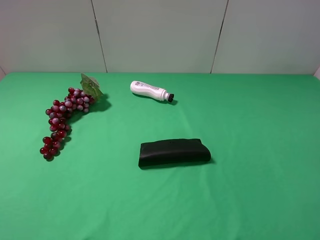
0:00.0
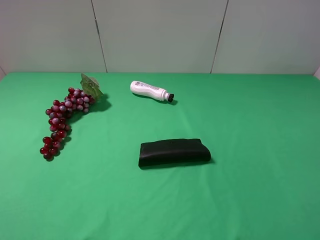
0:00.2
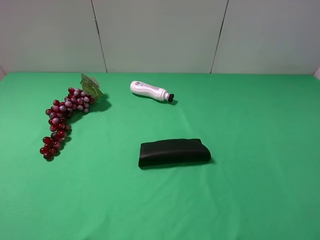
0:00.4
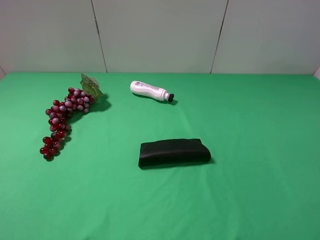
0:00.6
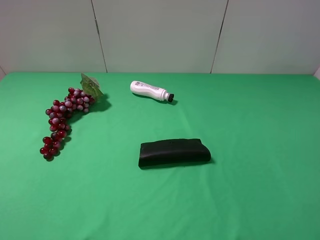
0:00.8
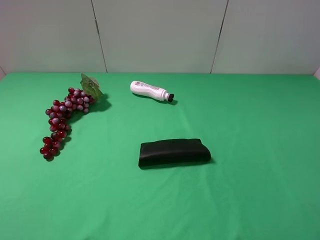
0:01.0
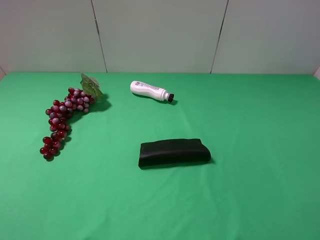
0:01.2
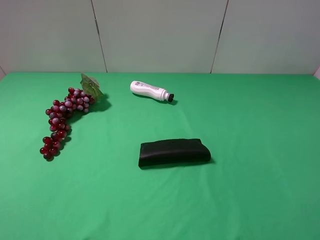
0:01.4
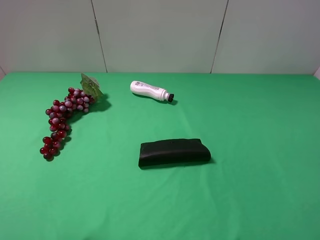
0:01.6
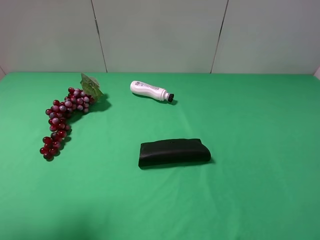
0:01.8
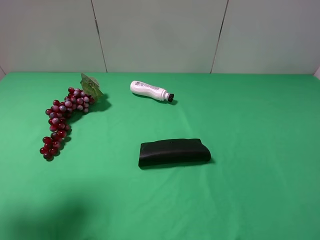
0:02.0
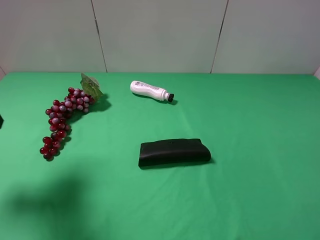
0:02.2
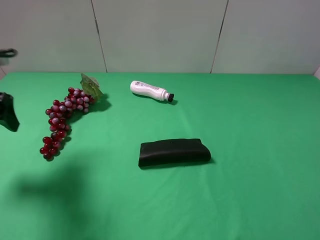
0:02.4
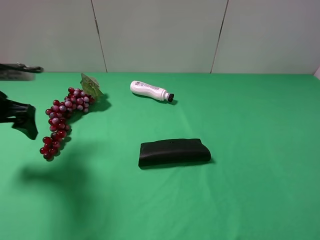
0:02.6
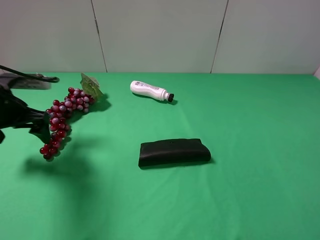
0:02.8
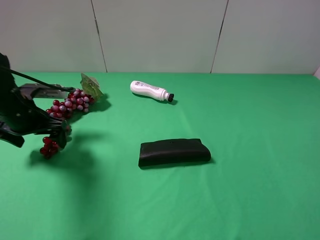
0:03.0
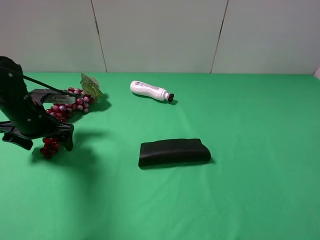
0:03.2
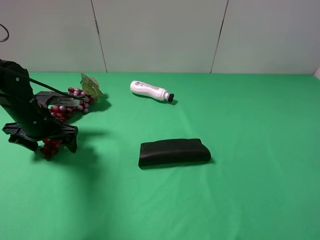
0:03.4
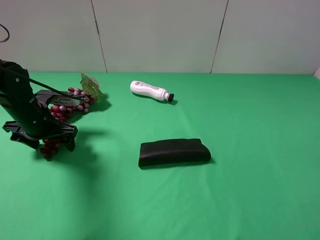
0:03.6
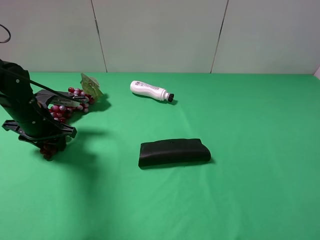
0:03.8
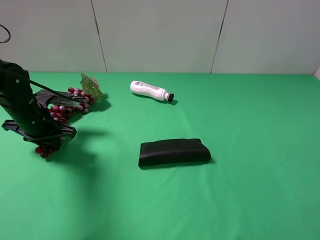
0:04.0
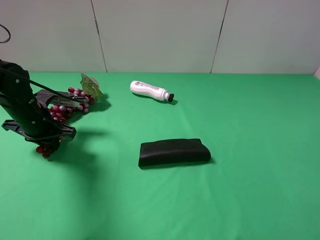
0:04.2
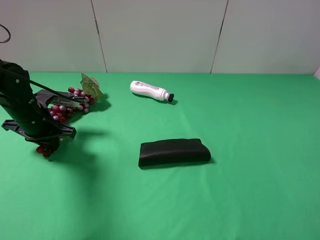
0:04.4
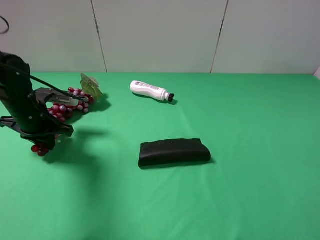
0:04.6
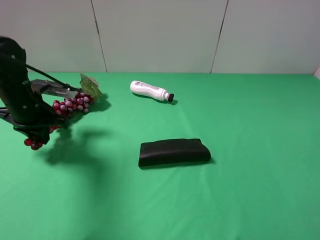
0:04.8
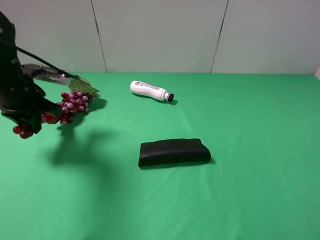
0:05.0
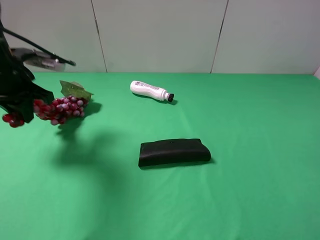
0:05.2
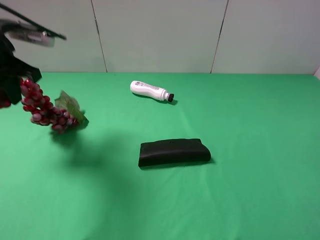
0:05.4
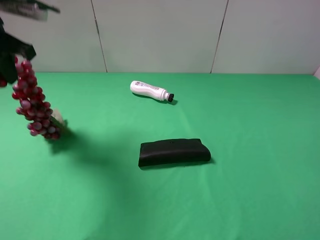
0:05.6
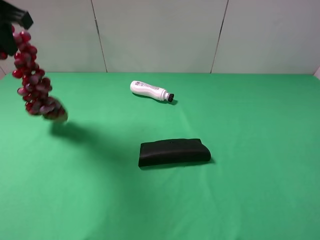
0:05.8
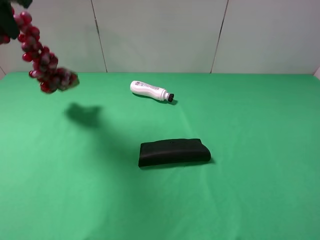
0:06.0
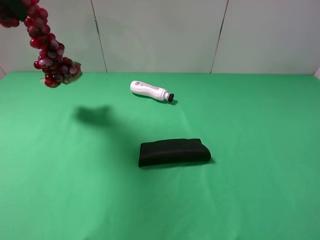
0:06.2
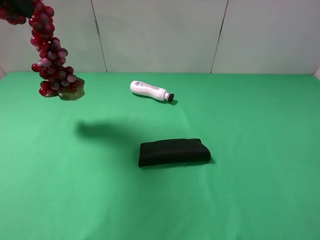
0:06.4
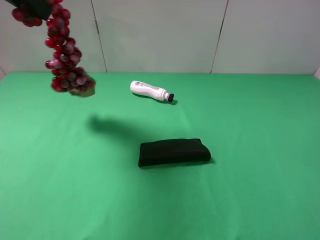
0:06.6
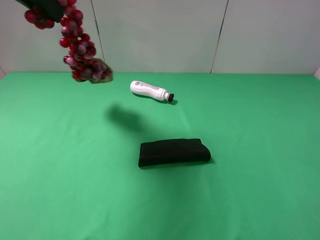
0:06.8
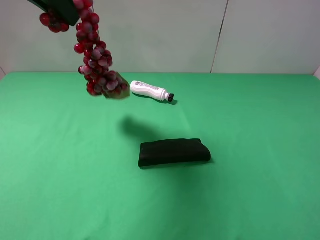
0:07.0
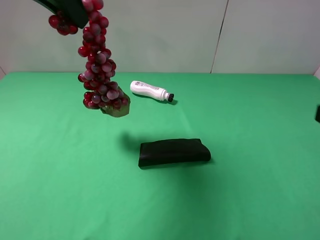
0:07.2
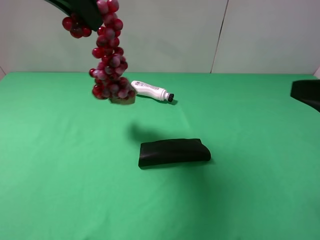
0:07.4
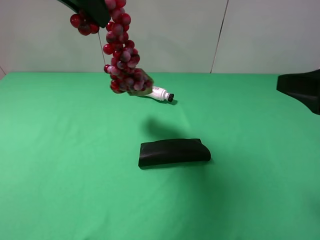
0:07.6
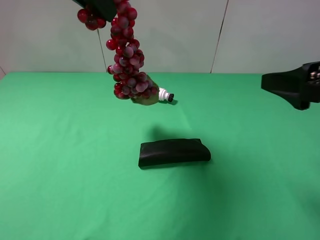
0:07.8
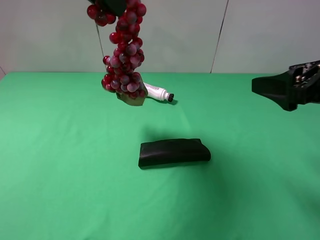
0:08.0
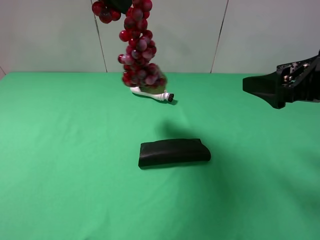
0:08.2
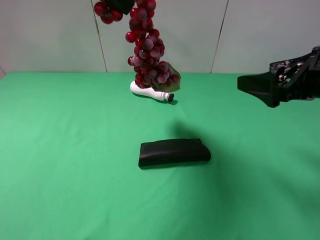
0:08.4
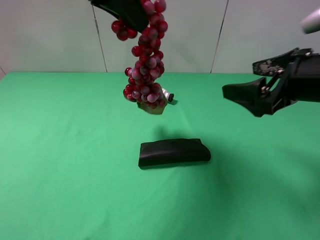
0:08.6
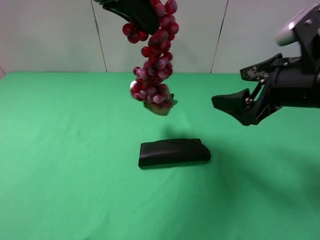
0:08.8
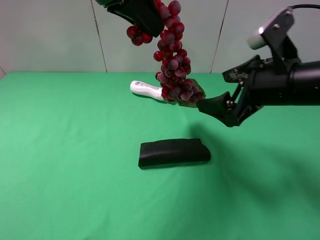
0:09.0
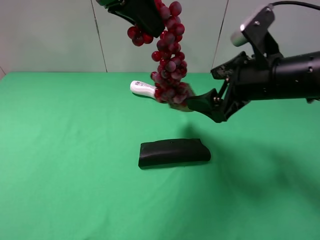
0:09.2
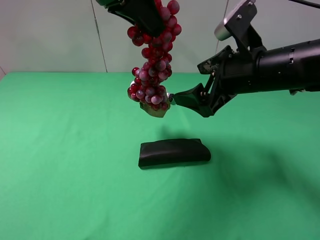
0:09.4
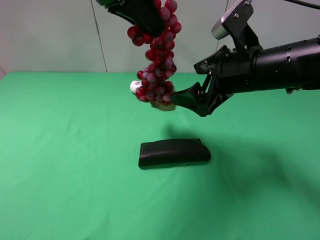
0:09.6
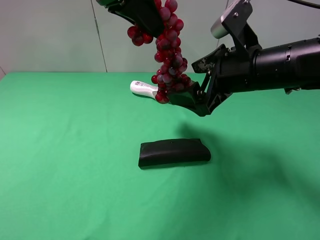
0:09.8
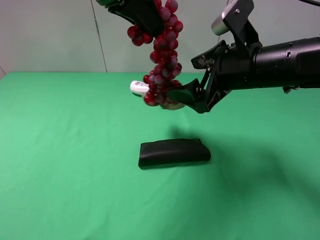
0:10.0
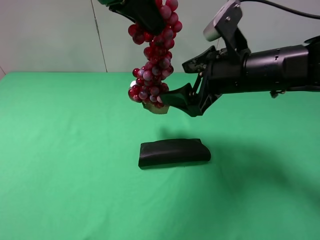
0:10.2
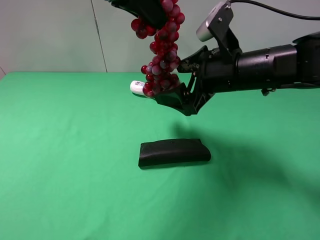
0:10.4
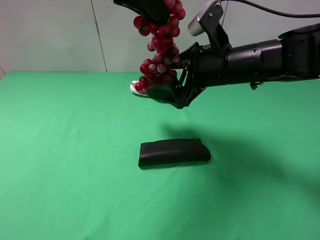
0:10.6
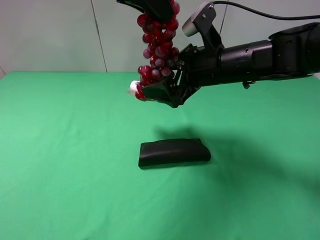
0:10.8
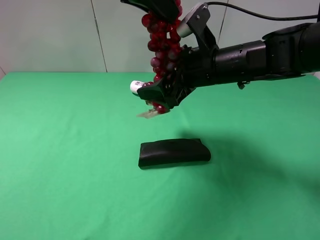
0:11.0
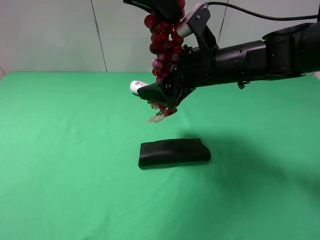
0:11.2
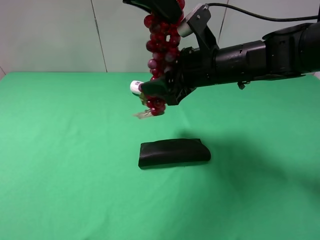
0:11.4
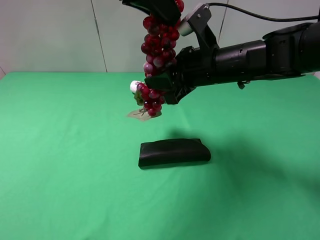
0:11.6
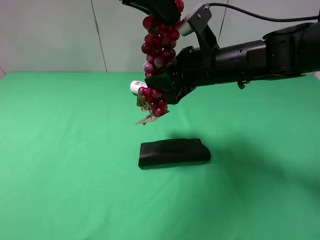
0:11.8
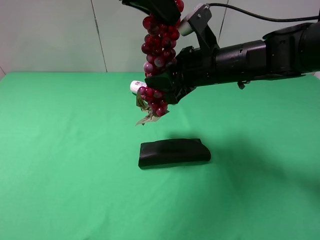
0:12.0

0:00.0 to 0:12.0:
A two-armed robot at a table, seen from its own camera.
Task of the whole recording: use the left gripper to pick up the item and transfer it from the left gripper to the right gripper.
Step, 0:00.0 to 0:04.4: Use the left gripper to grab the grape on the left side of the table.
0:01.6 to 0:03.0: The left gripper goes some 30 cm forward and downward.
0:03.0 to 0:04.4: The left gripper closes its fingers.
0:04.4 to 0:06.0: The left gripper travels upward by roughly 25 cm.
0:06.0 to 0:07.6: The right gripper heads forward, covering roughly 15 cm. The left gripper goes about 15 cm to the right.
0:07.6 to 0:09.0: The left gripper ends up roughly 5 cm from where it was, while the right gripper heads forward, to the left and downward, covering roughly 15 cm.
0:09.0 to 0:10.4: The right gripper travels to the left by some 5 cm.
0:10.4 to 0:12.0: The right gripper closes up.

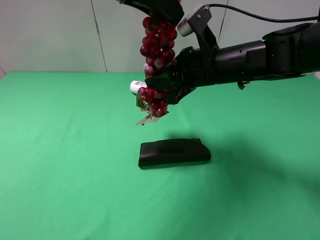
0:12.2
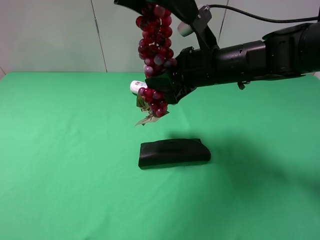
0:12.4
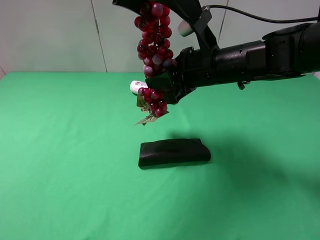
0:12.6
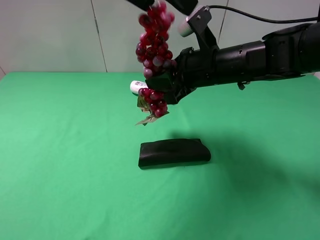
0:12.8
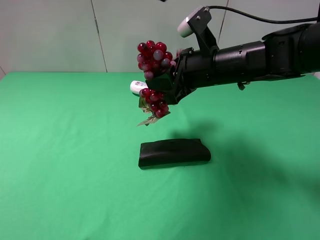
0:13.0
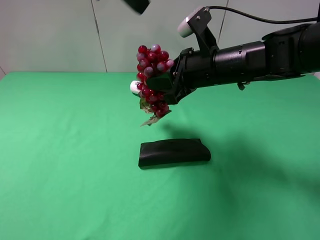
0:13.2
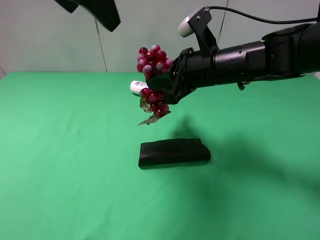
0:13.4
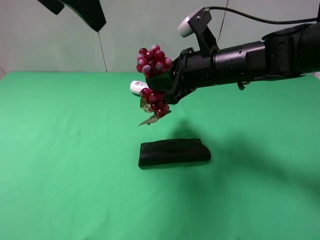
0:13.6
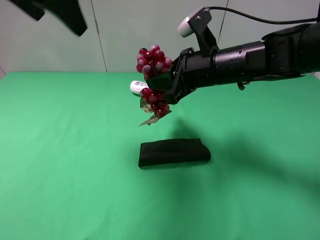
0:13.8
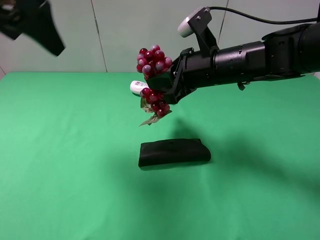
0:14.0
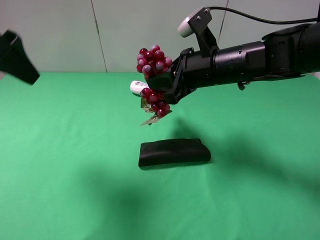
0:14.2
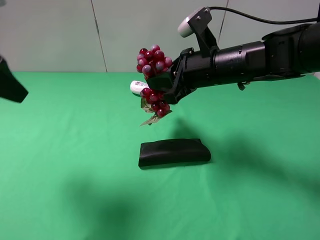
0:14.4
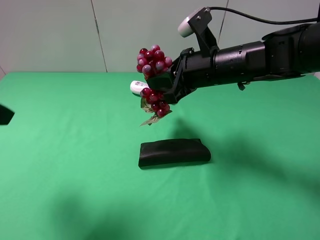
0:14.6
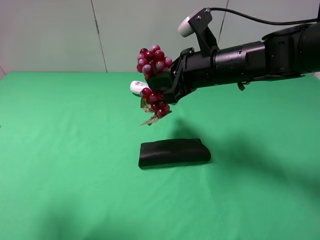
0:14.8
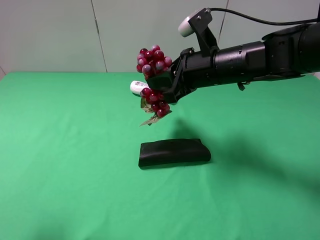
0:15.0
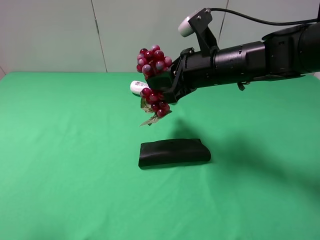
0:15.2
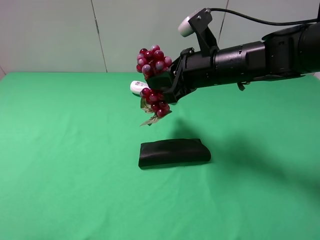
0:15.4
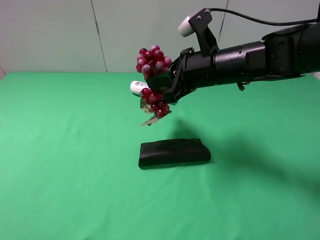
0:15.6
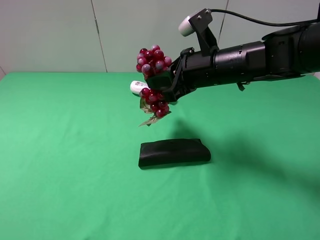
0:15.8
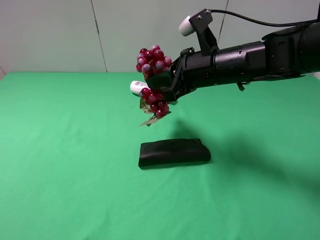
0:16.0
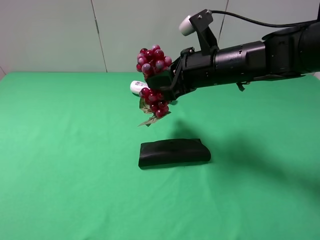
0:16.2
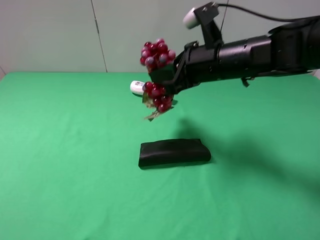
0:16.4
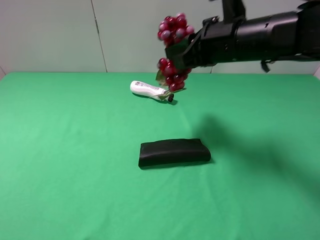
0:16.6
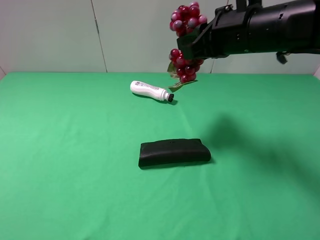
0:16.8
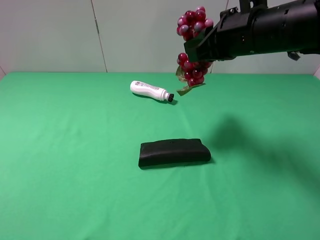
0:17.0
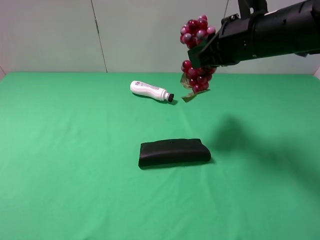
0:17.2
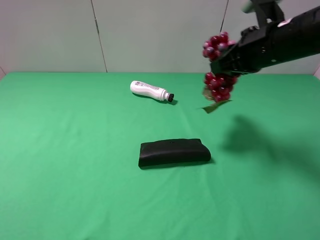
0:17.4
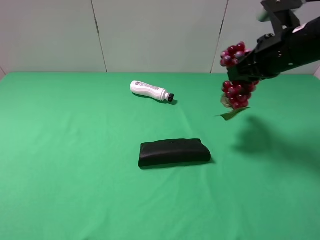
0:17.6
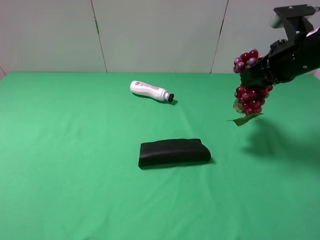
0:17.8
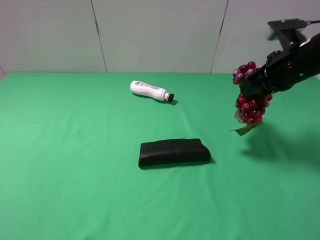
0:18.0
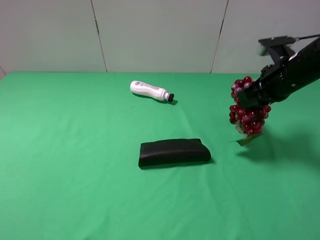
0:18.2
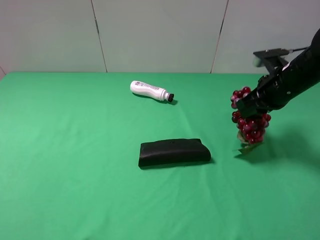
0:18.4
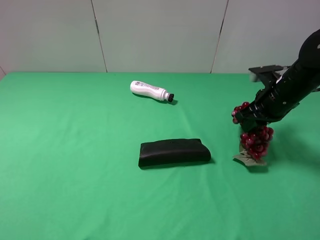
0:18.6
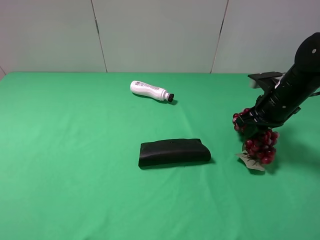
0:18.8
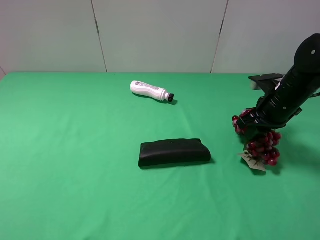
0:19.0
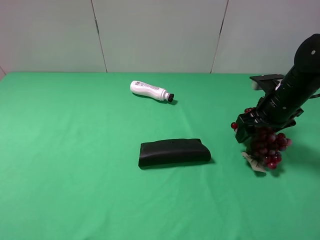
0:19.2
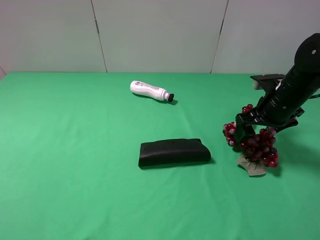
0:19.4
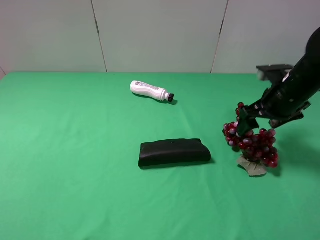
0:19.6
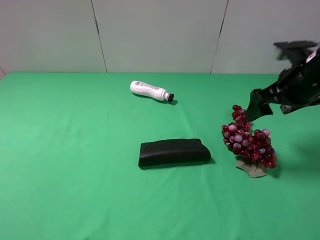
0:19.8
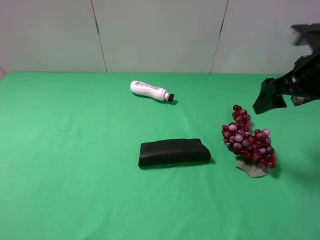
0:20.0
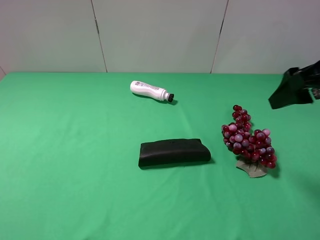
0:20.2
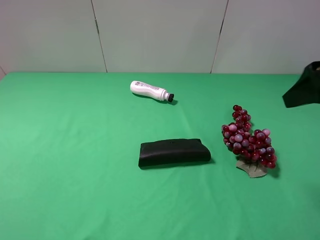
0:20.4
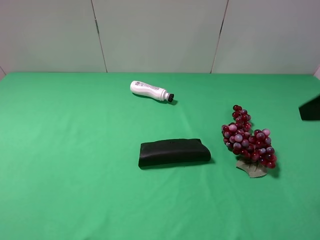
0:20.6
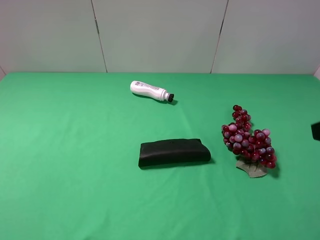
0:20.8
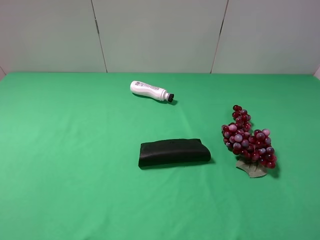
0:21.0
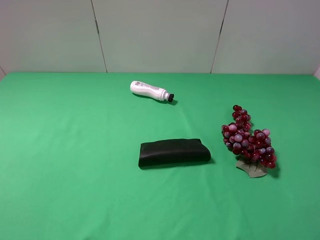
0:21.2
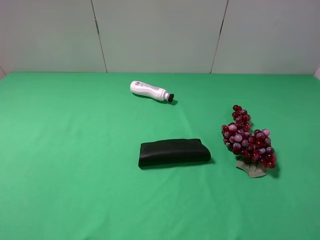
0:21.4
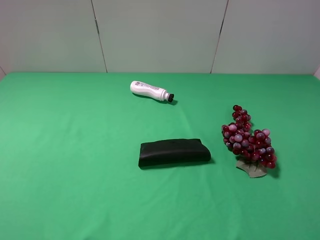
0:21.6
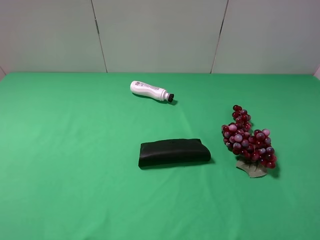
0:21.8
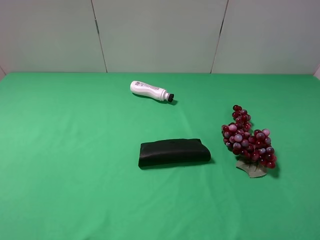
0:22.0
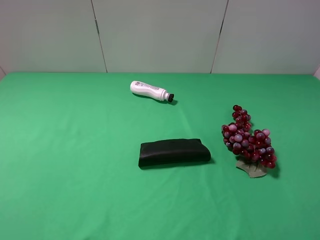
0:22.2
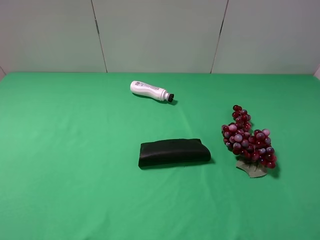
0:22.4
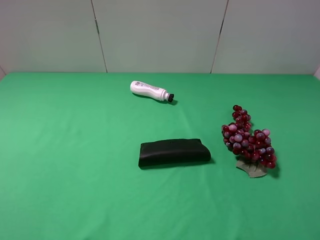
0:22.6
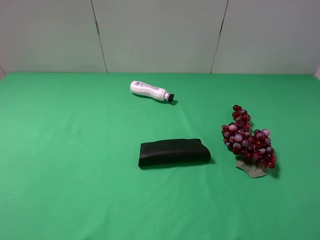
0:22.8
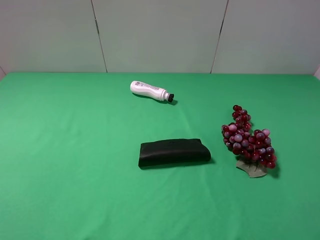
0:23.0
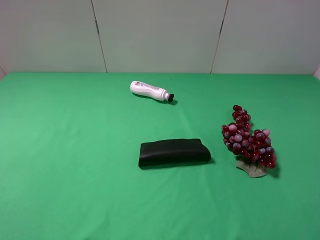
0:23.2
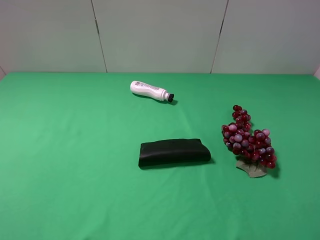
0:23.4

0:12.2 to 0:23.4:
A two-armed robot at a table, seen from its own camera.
Task of the whole recording: use the left gripper to pick up the item and transfer it from the left gripper to the right gripper.
Step, 0:13.2 to 0:19.6: The right gripper places grape on the right side of the table.
0:12.2 to 0:13.8: The left gripper is displaced to the left by roughly 15 cm, and opens its fingers.
0:13.8 to 0:15.4: The left gripper is displaced backward, to the left and downward by approximately 30 cm.
0:15.4 to 0:17.0: The right gripper moves upward, some 5 cm.
0:17.0 to 0:18.6: The right gripper heads downward and to the right, covering roughly 15 cm.
0:18.6 to 0:20.2: The right gripper moves upward and backward, roughly 20 cm, and opens.
0:20.2 to 0:21.8: The right gripper travels backward by approximately 20 cm.
